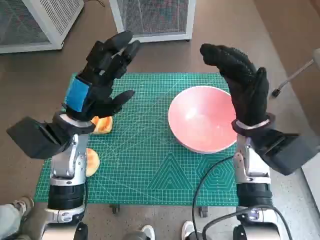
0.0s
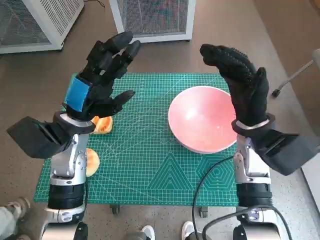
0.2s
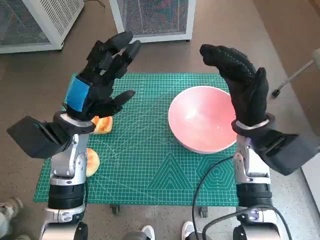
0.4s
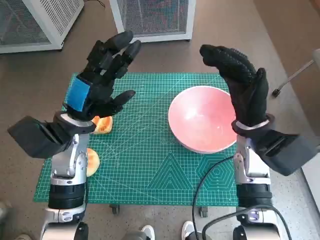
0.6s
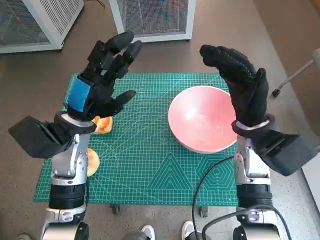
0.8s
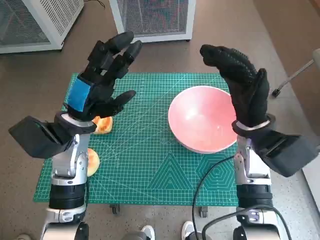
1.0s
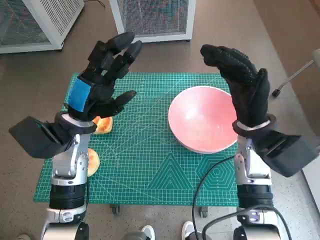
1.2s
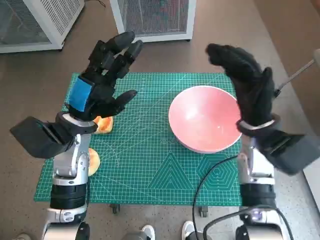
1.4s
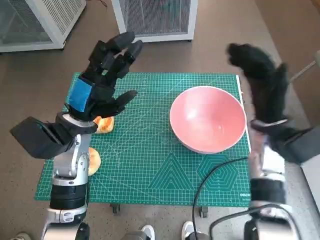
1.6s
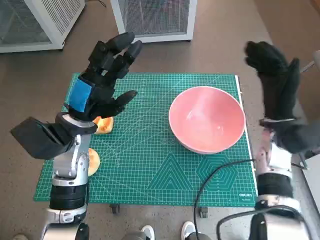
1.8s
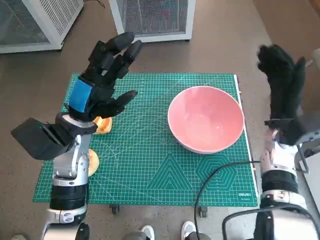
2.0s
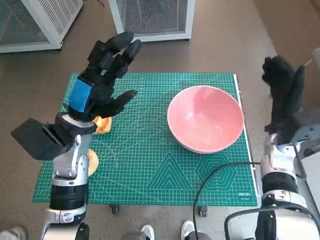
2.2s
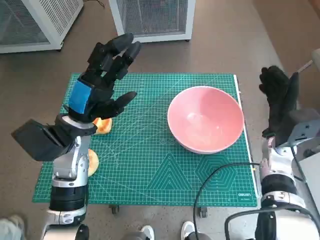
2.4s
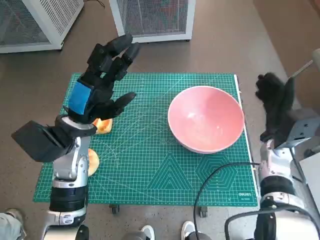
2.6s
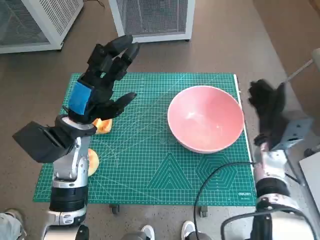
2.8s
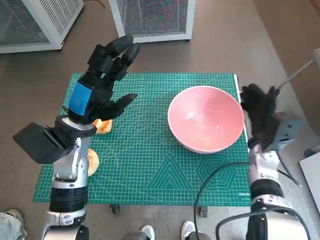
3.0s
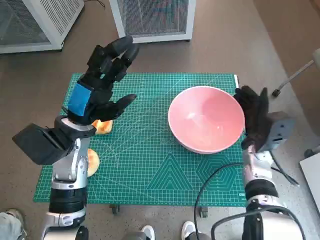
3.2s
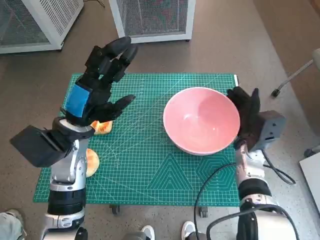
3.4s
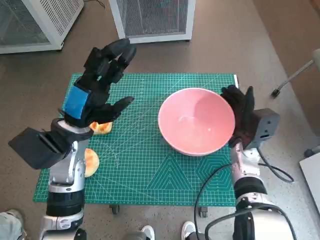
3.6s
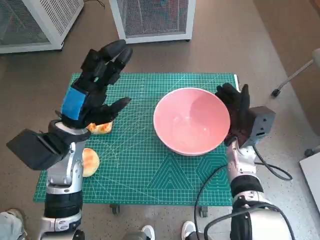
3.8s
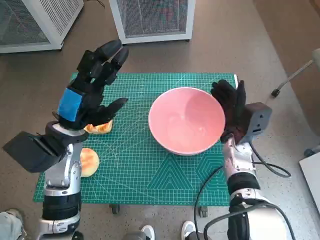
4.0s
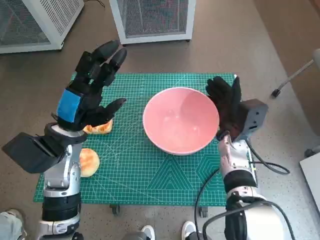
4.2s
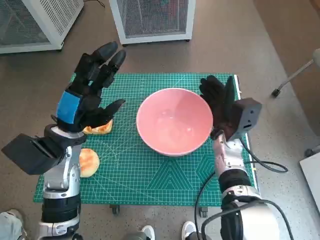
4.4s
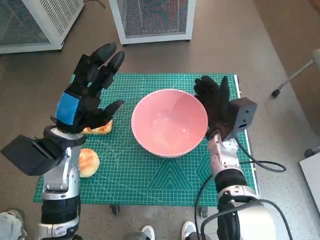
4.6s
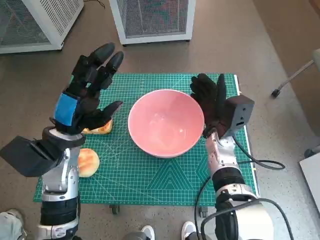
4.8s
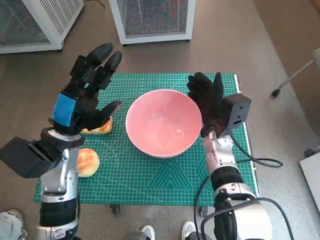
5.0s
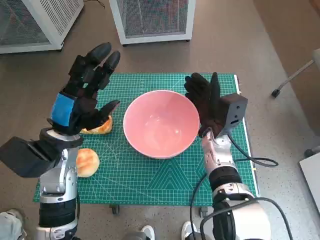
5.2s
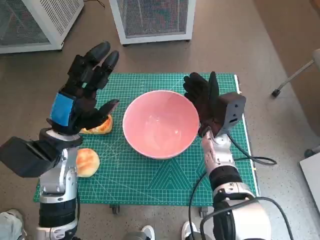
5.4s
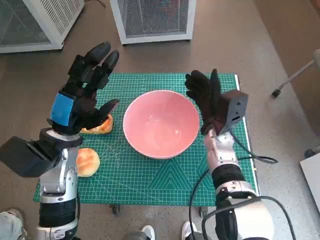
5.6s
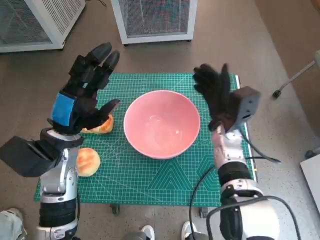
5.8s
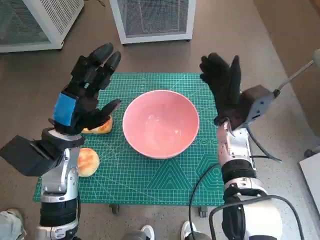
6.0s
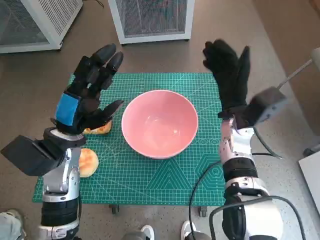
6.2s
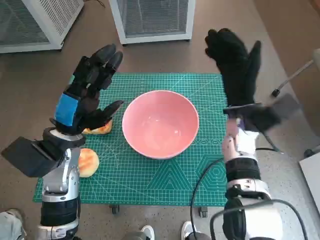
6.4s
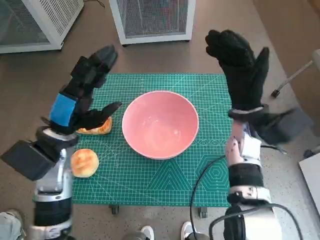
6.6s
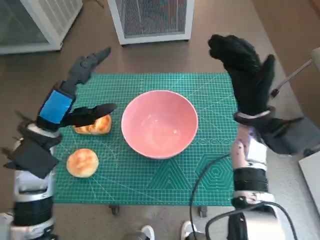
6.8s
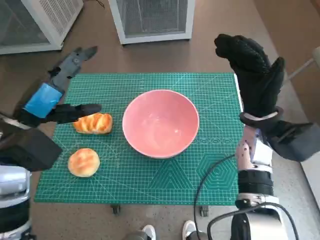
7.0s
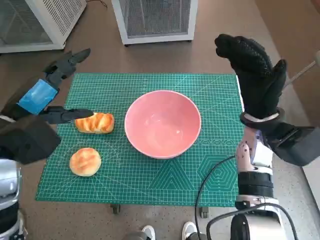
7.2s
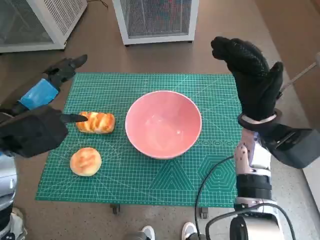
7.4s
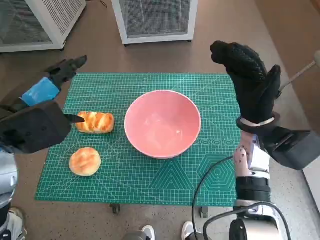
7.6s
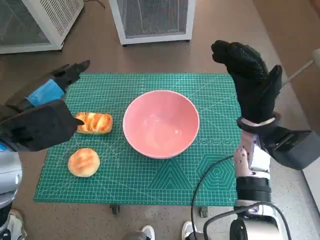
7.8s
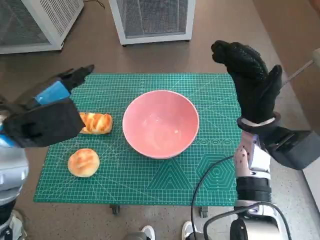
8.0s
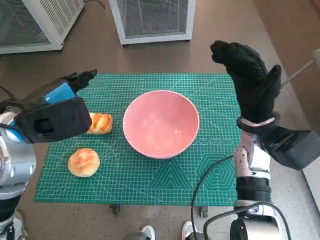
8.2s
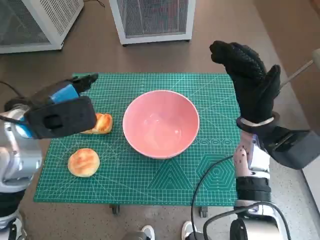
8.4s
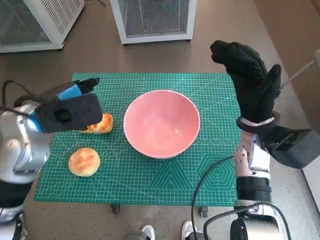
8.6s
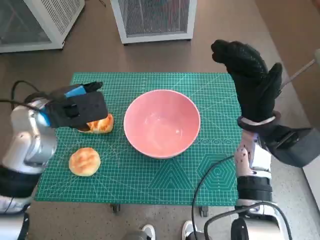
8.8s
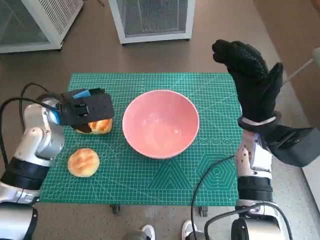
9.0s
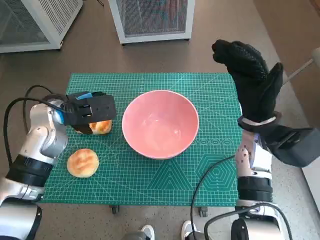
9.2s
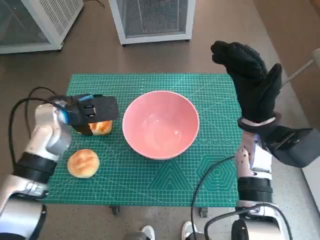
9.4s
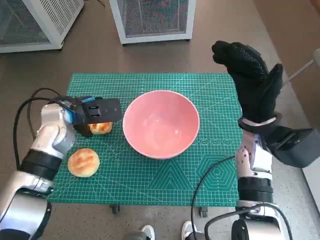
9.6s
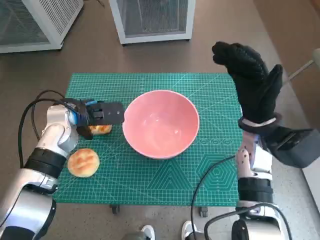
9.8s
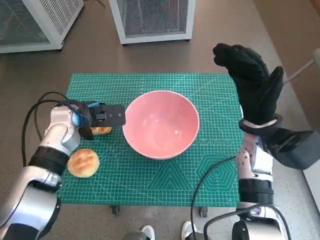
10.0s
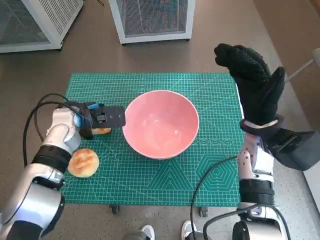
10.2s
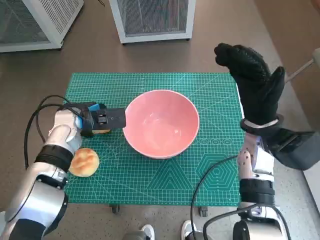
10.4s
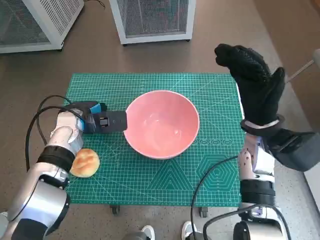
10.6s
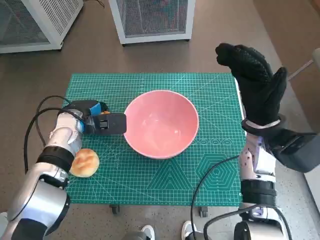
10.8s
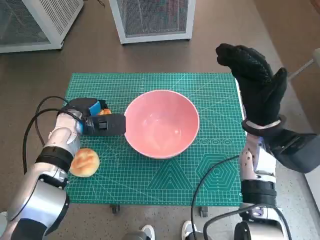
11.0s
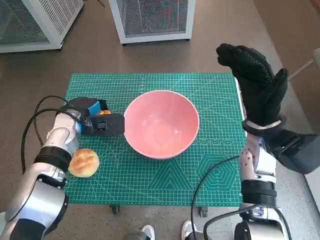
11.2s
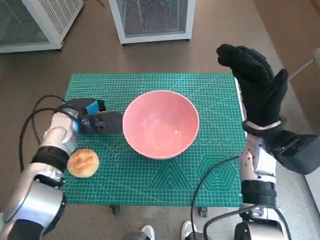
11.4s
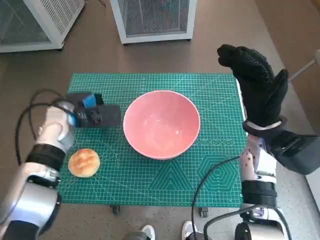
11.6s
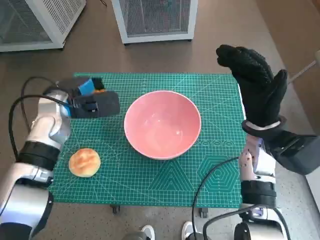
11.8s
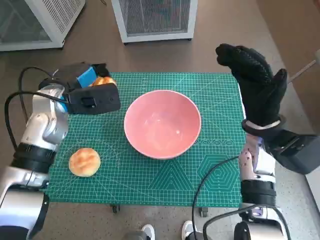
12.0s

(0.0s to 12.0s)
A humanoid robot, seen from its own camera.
Task of the whole recording: Push the bowl into the center of the table and put the bread into the bowl.
Step, 0.0s - 5.6s: Move the pink bowl to the center of table with right hand.
Step, 5.8s - 10.6s: Grasp the long bread with left hand.
1.6s - 3.0s: The right hand heads downward, covering roughly 10 cm.
3.0s - 4.4s: The right hand moves to the left, approximately 10 cm.
4.4s - 6.0s: The hands stay close to where they were, moving slightly.
6.0s - 7.6s: The right hand goes roughly 5 cm upward. Meanwhile the left hand goes some 10 cm upward.
7.6s - 9.0s: The left hand moves forward and downward, approximately 10 cm.
9.0s - 10.4s: The left hand goes some 10 cm downward.
10.4s - 12.0s: The left hand heads upward, covering roughly 5 cm.

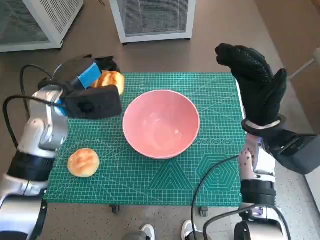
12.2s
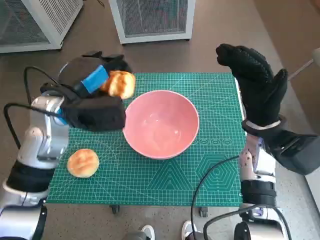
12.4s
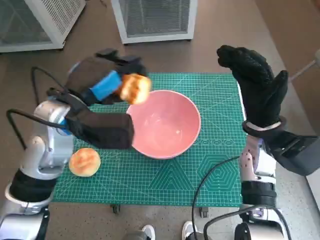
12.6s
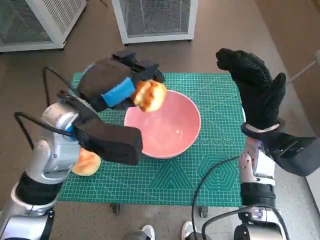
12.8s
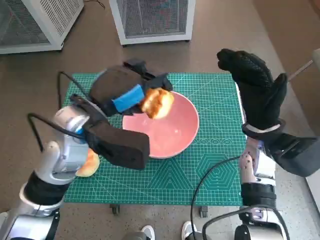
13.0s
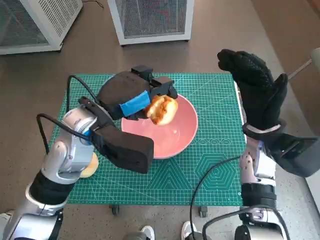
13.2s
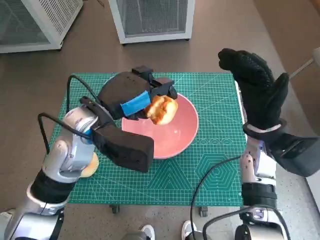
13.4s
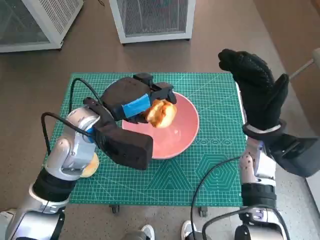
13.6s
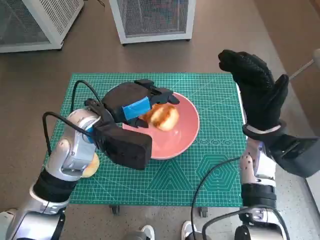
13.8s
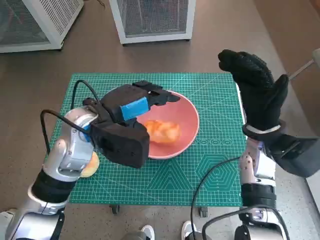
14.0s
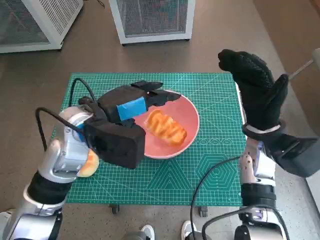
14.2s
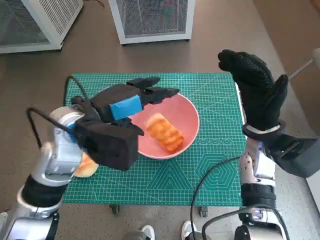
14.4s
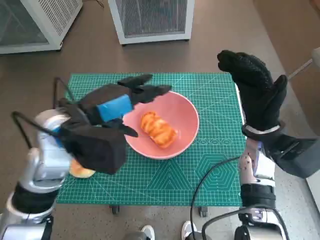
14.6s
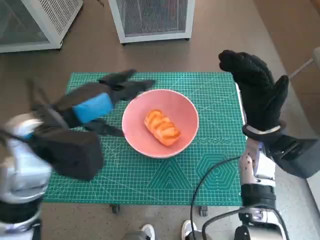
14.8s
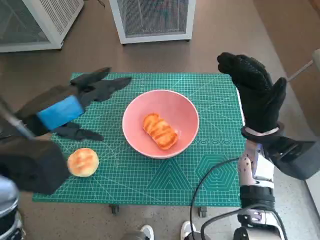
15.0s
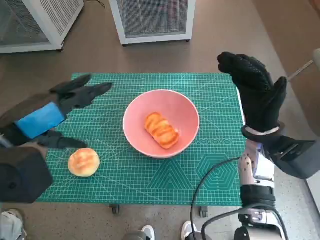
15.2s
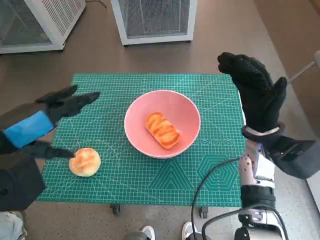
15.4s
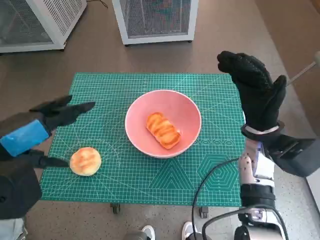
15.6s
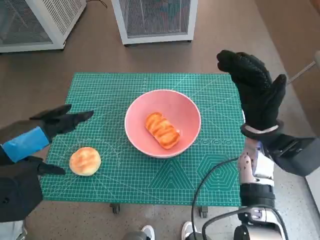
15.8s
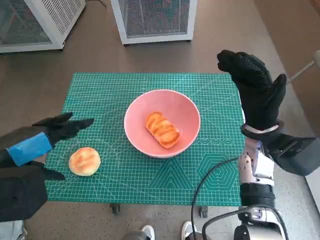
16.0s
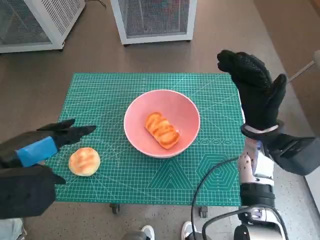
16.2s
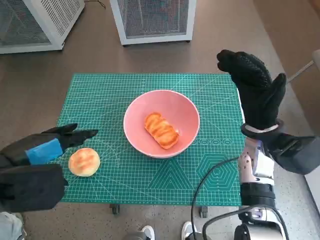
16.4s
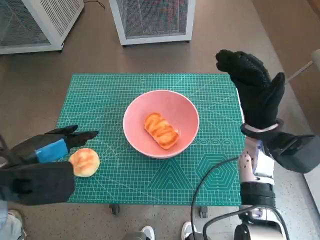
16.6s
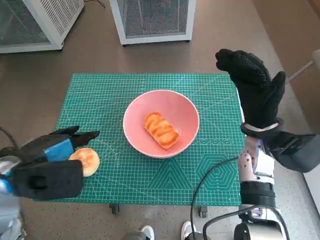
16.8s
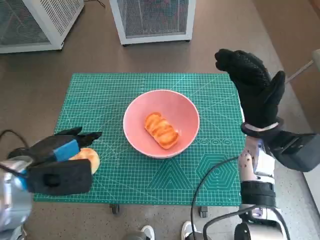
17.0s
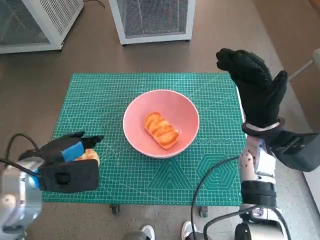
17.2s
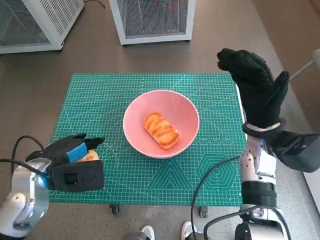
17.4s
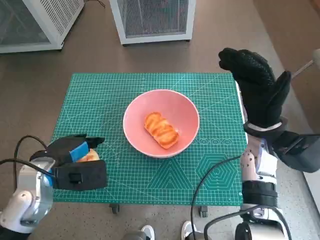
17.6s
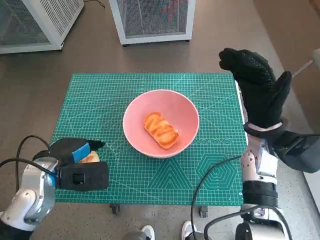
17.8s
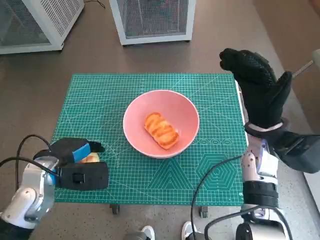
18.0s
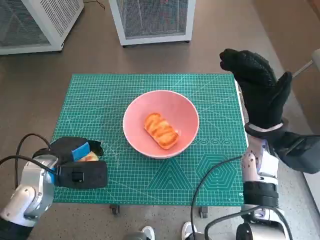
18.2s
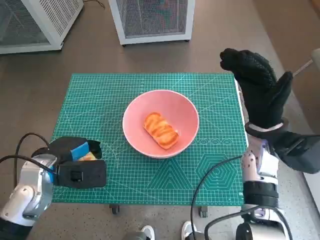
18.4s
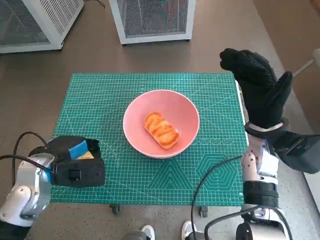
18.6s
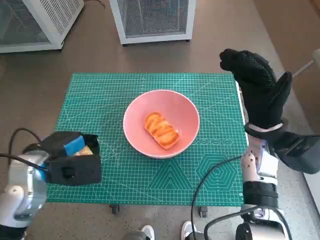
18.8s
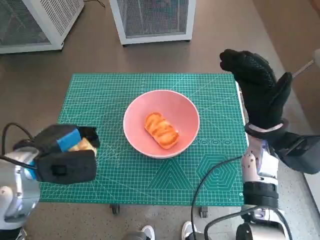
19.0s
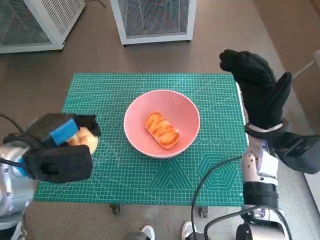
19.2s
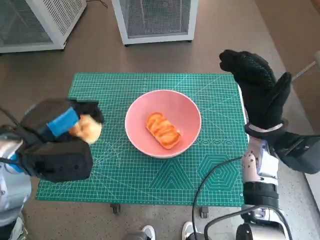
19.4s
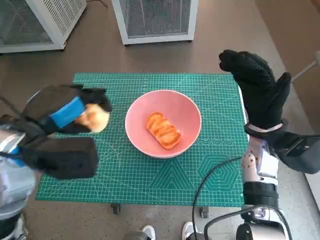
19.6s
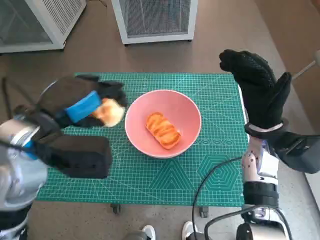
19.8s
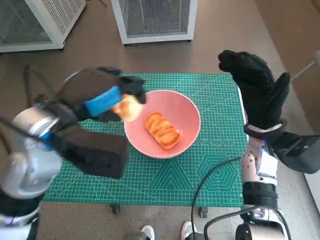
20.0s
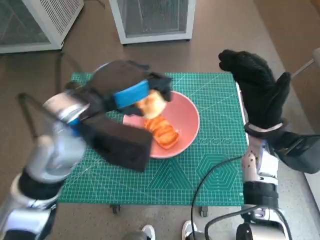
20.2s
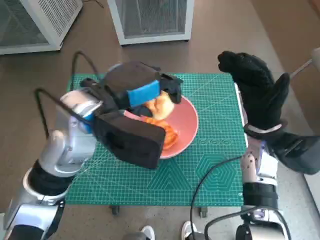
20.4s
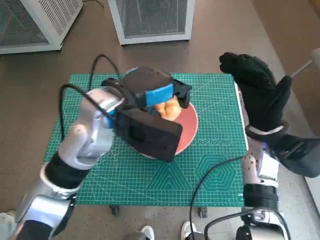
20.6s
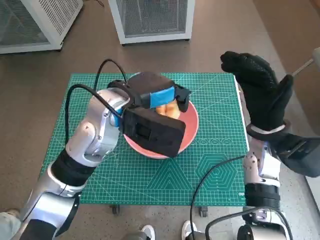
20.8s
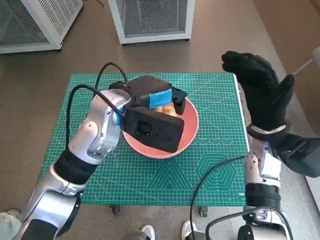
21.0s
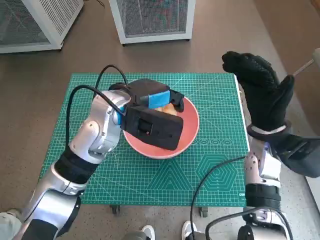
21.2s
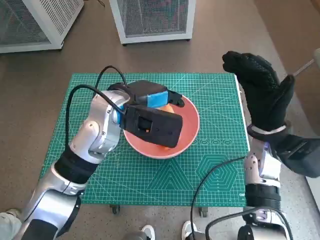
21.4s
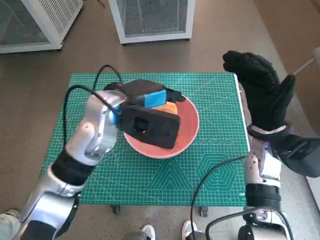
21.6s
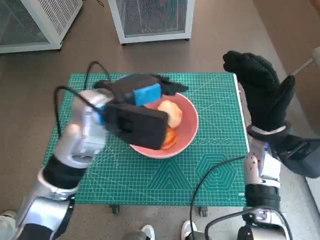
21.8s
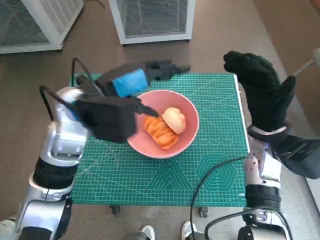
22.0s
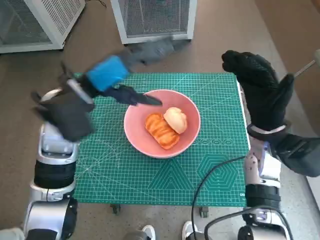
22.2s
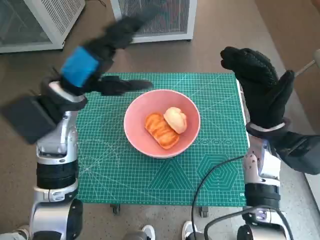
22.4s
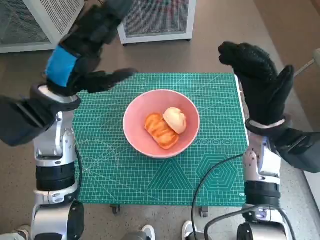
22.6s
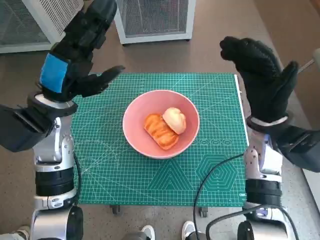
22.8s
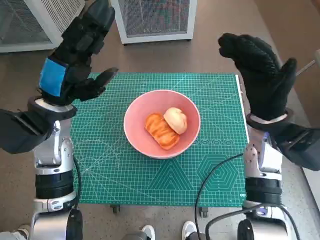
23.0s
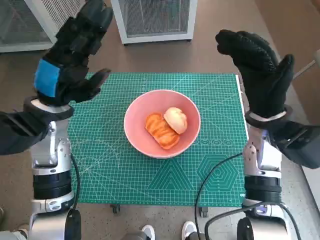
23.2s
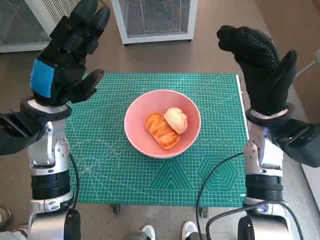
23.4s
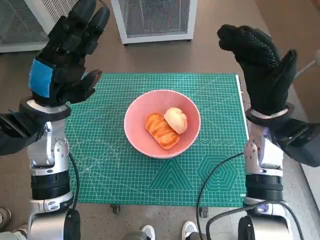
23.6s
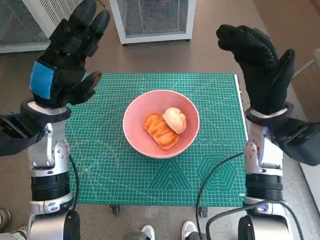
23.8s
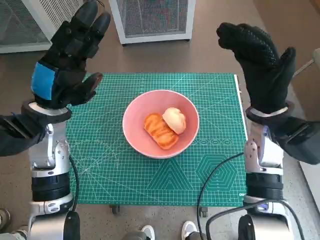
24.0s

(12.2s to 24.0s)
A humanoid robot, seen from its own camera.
Task of the whole recording: Push the bowl into the center of the table and put the bread into the bowl.
Step, 12.2s - 13.8s: Place the long bread in pink bowl with left hand.
Step, 14.2s - 18.2s: Grasp the round bread with left hand.
Step, 18.4s - 21.4s: Place the round bread in pink bowl with left hand.
12.2s - 13.6s: The left hand is displaced to the right by approximately 5 cm.
13.6s - 15.2s: The left hand moves to the left, backward and upward, some 15 cm.
16.6s - 18.2s: The left hand is displaced downward by about 10 cm.
18.2s - 19.6s: The left hand travels upward by roughly 10 cm.
19.6s - 21.0s: The left hand shifts about 15 cm to the right and forward.
21.0s - 22.6s: The left hand shifts about 10 cm to the left.
